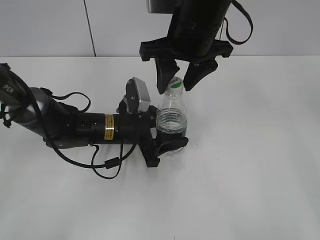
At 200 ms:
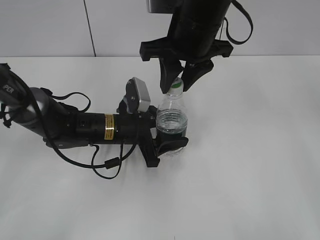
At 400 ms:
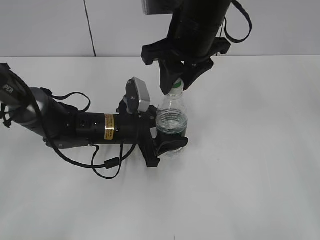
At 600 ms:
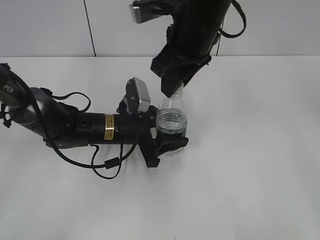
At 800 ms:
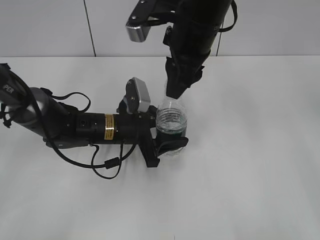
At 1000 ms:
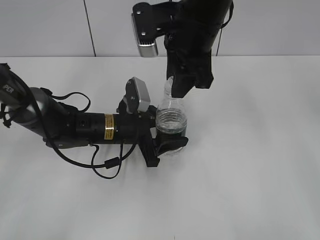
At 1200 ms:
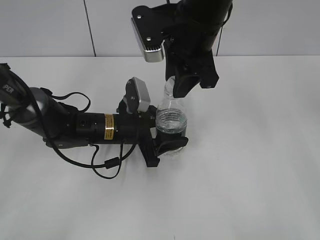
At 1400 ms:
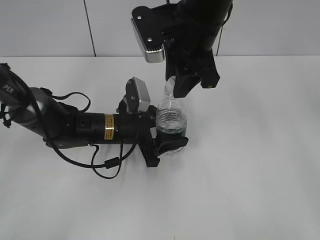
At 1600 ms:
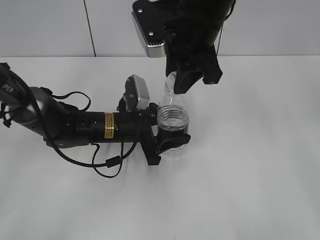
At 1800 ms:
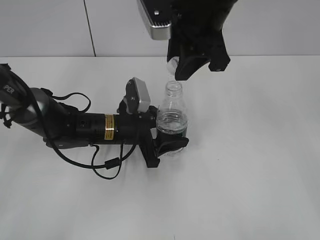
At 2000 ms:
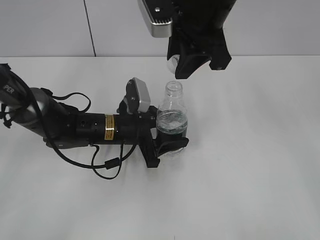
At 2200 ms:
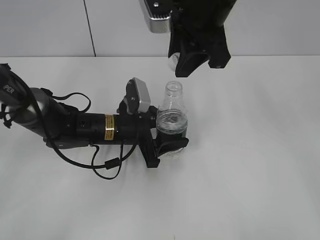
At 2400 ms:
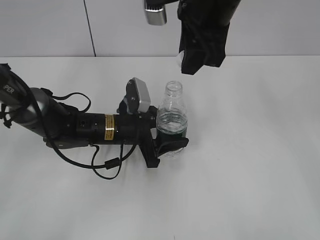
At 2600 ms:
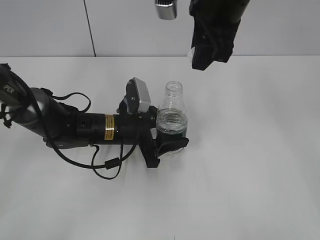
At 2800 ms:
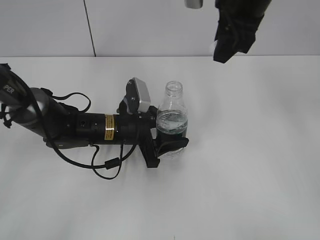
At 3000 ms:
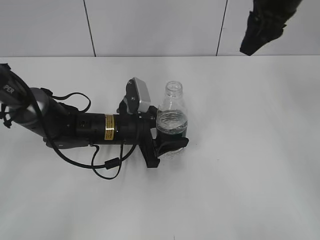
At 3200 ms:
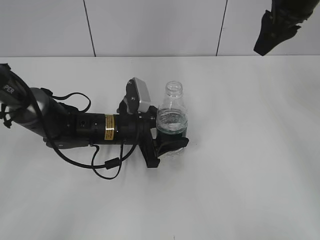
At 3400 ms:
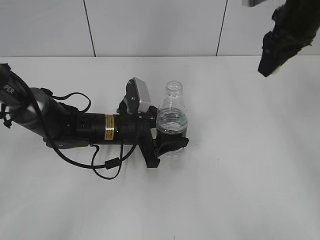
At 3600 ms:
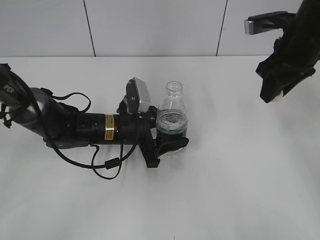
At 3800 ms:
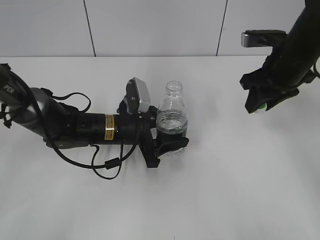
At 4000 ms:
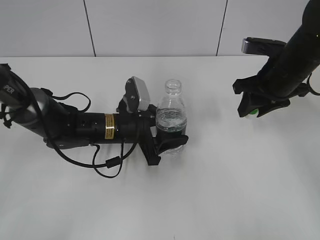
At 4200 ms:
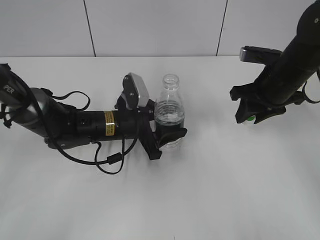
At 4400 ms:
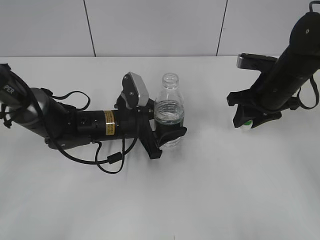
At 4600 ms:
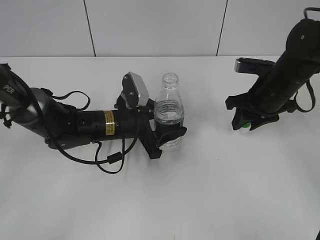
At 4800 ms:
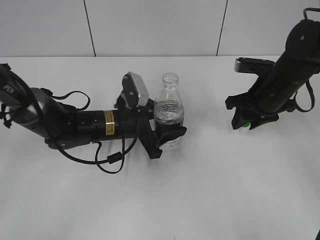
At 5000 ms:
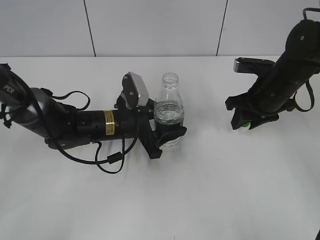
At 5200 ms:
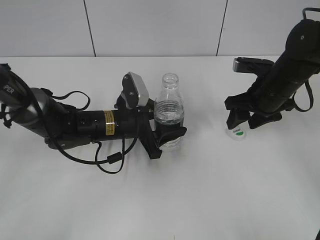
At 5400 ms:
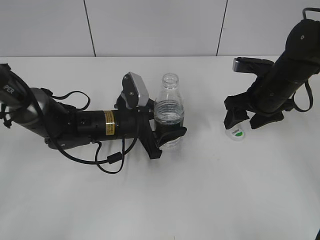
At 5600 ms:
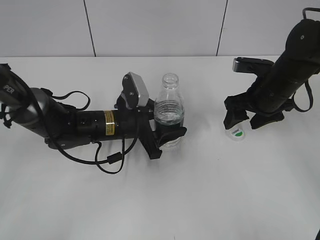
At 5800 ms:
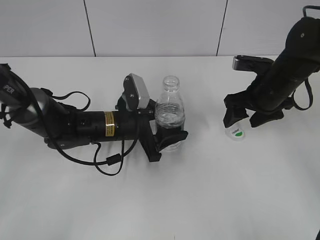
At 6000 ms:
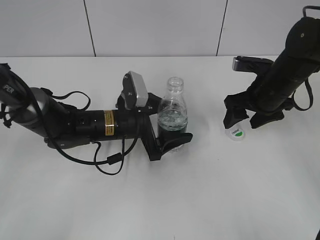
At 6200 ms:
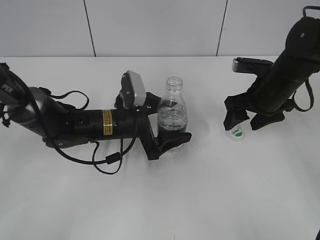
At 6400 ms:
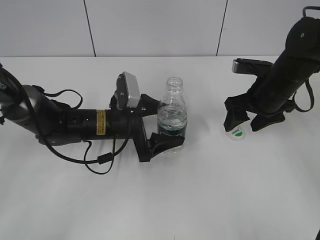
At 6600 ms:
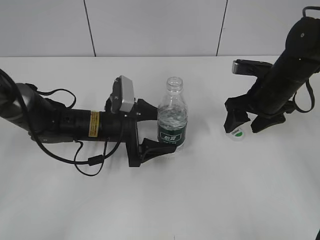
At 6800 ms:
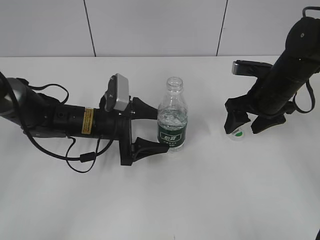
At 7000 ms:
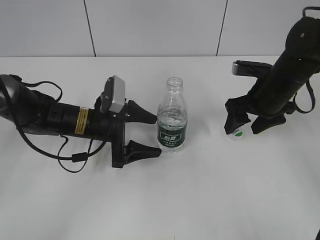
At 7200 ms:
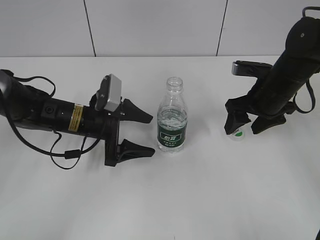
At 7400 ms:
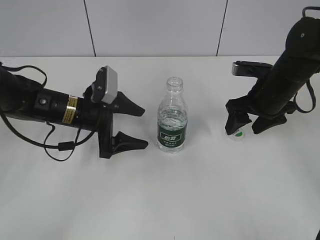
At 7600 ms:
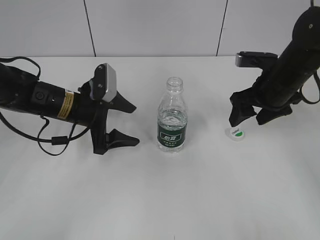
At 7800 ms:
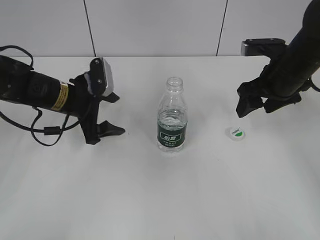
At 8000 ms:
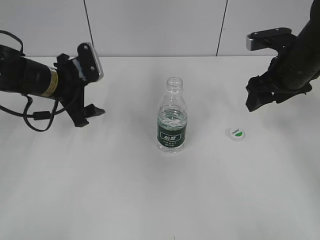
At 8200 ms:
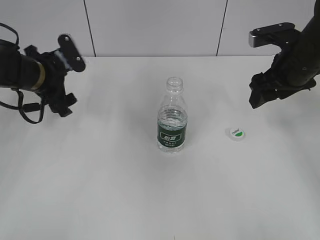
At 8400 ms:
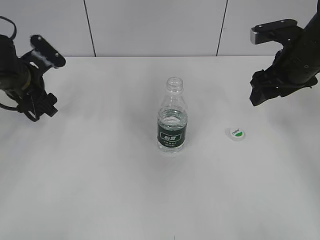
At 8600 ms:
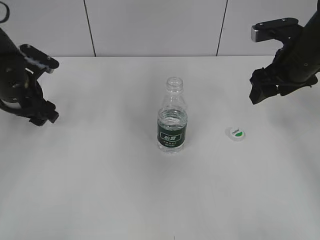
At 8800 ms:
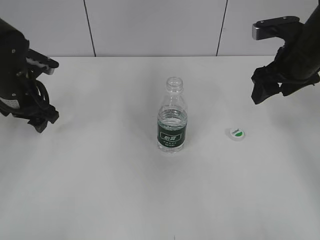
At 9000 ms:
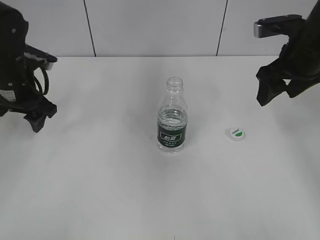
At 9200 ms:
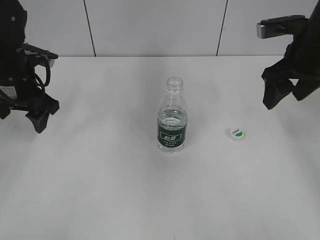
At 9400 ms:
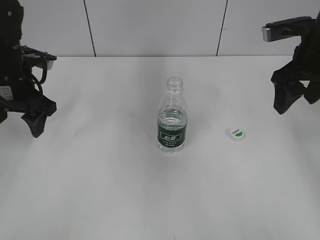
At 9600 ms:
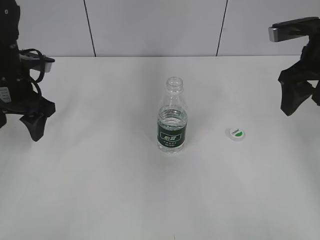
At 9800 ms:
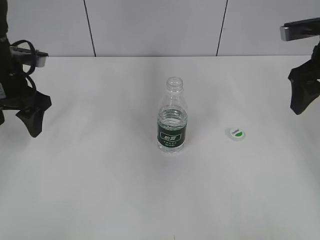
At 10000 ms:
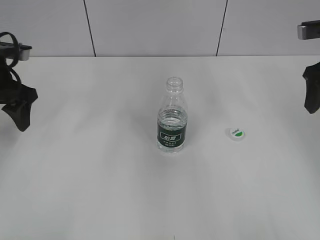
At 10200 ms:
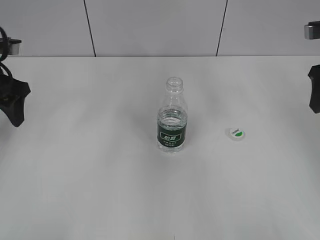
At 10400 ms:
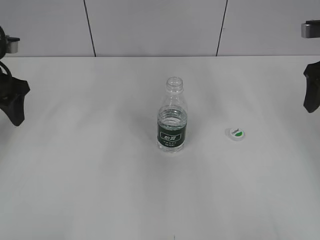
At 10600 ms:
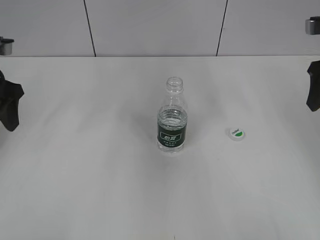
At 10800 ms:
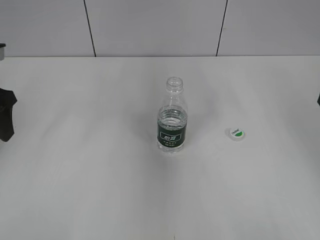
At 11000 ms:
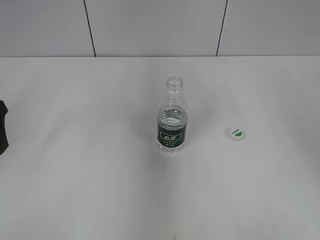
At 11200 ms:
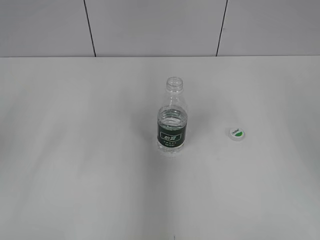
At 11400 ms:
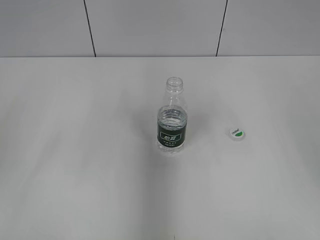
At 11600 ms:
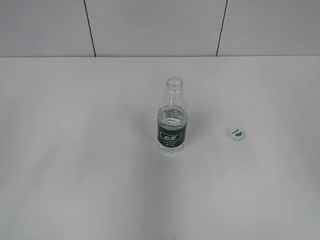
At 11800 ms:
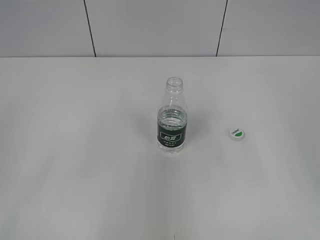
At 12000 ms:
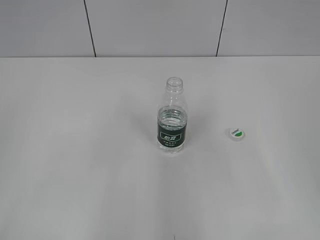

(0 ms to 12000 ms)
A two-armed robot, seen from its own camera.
0 ms - 1600 ms: The right gripper closes its fingers.
1600 ms - 3000 ms: The right gripper goes about 10 cm to the right.
3000 ms - 4400 ms: The right gripper travels downward by approximately 15 cm.
4400 ms - 6000 ms: The left gripper opens, while the right gripper opens its fingers.
6000 ms - 7600 ms: The left gripper heads to the left, covering approximately 10 cm.
7600 ms - 9000 ms: The left gripper travels to the left and upward by some 10 cm. The right gripper shifts roughly 10 cm upward.
9000 ms - 10400 ms: The right gripper shifts some 5 cm to the right, while the left gripper moves roughly 5 cm.
10400 ms - 12000 ms: The grippers both shift backward by about 25 cm.

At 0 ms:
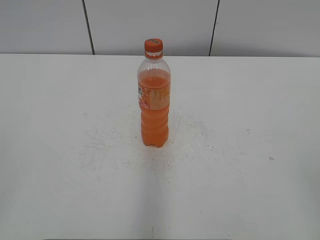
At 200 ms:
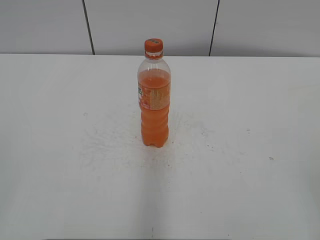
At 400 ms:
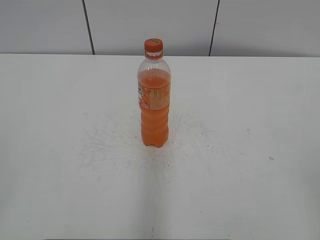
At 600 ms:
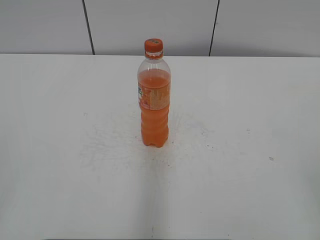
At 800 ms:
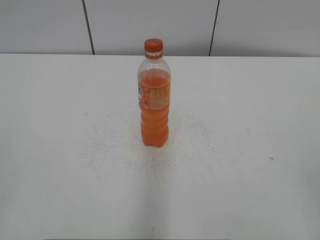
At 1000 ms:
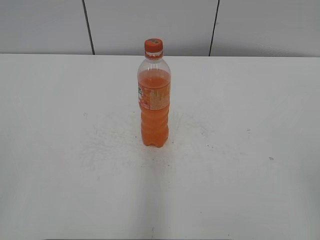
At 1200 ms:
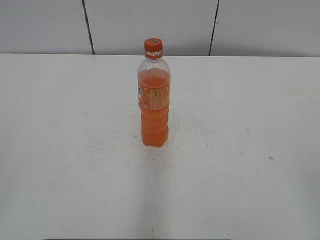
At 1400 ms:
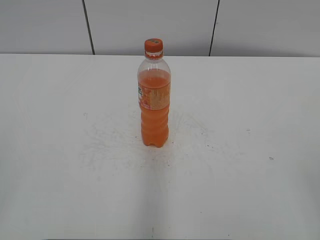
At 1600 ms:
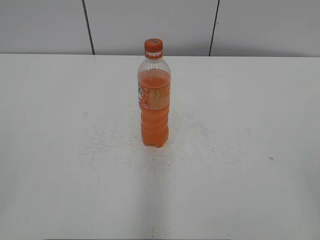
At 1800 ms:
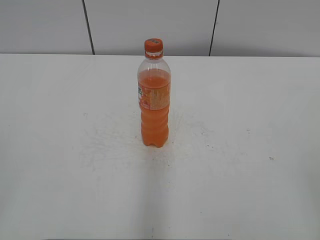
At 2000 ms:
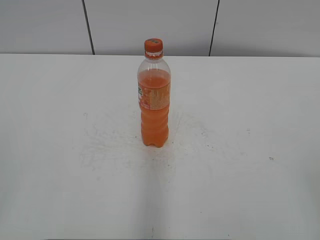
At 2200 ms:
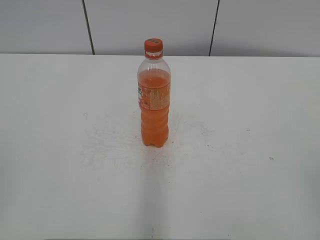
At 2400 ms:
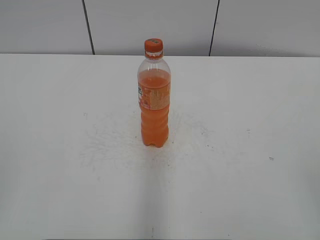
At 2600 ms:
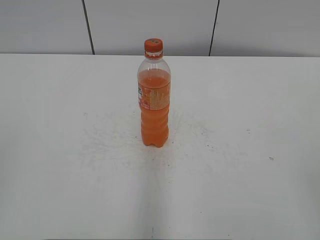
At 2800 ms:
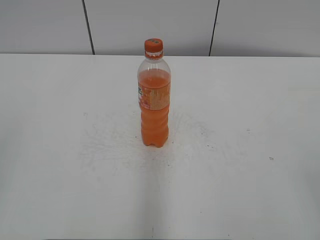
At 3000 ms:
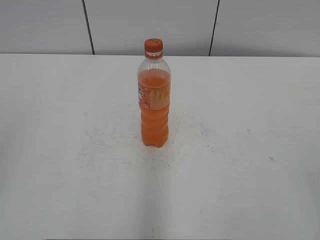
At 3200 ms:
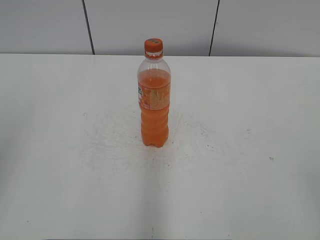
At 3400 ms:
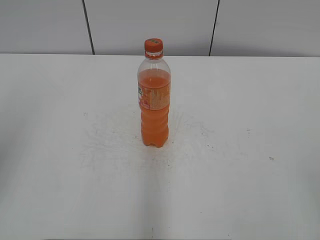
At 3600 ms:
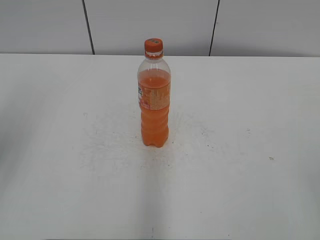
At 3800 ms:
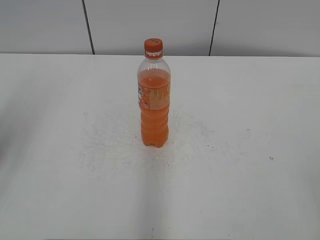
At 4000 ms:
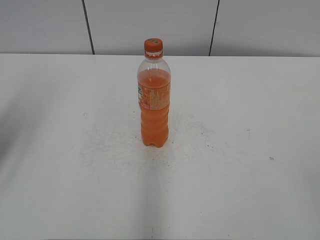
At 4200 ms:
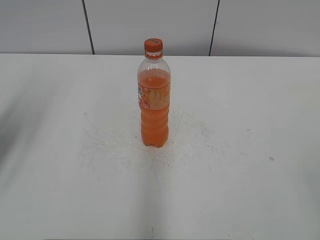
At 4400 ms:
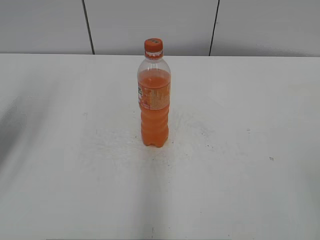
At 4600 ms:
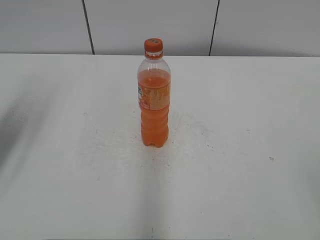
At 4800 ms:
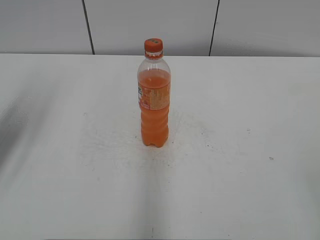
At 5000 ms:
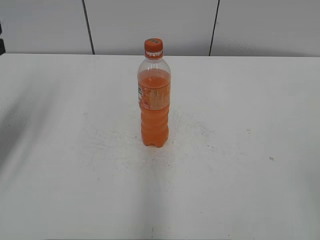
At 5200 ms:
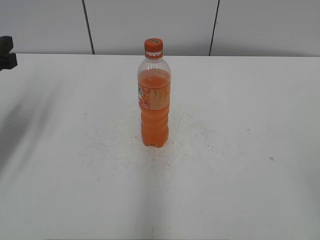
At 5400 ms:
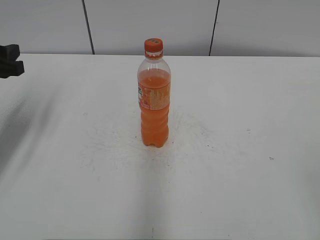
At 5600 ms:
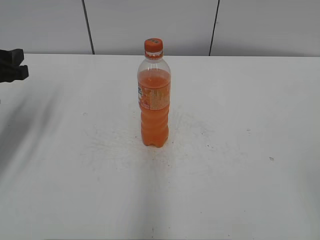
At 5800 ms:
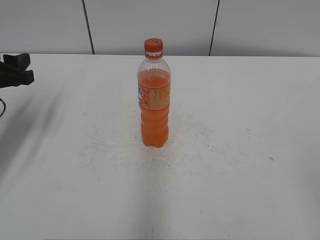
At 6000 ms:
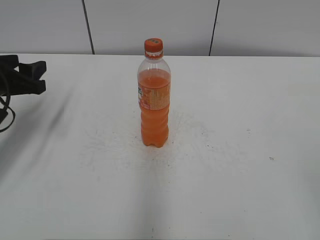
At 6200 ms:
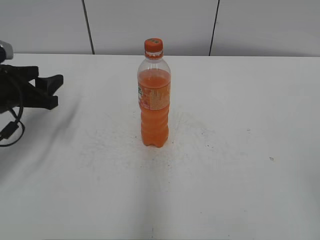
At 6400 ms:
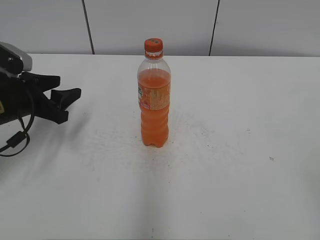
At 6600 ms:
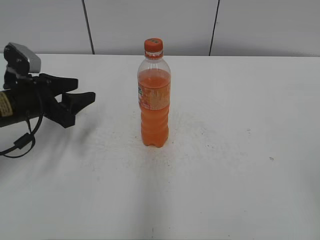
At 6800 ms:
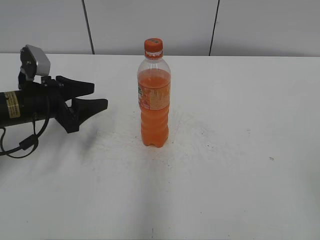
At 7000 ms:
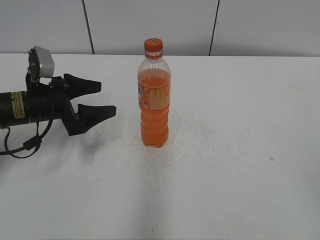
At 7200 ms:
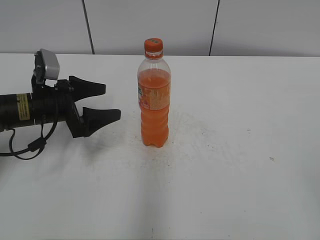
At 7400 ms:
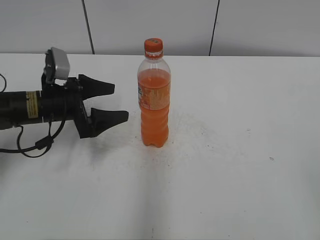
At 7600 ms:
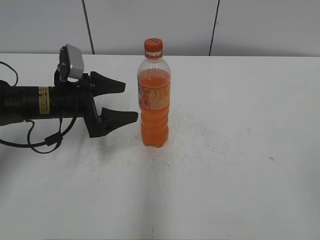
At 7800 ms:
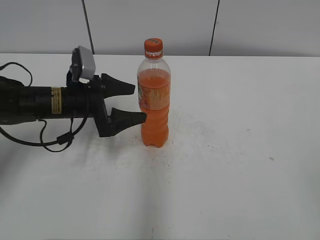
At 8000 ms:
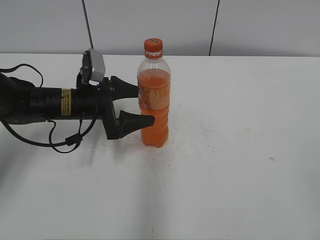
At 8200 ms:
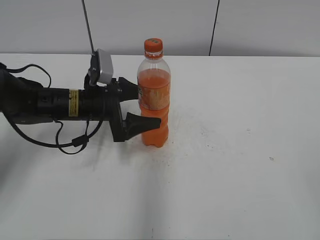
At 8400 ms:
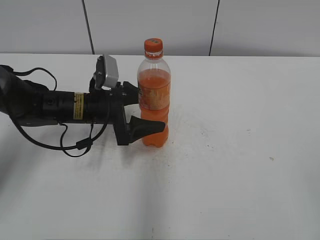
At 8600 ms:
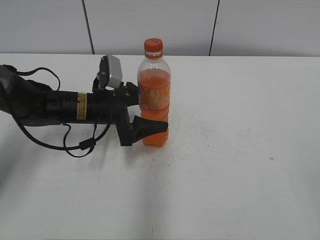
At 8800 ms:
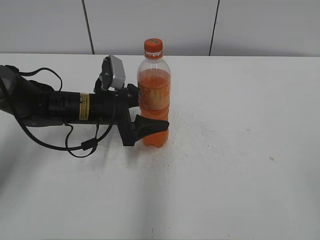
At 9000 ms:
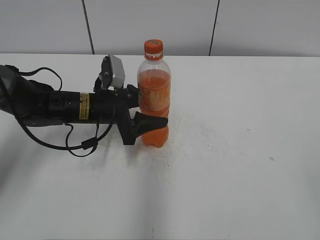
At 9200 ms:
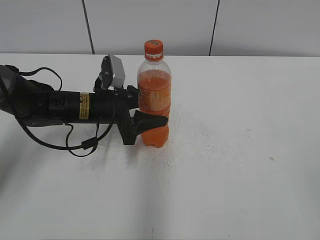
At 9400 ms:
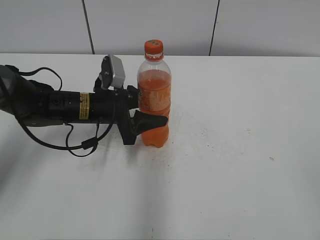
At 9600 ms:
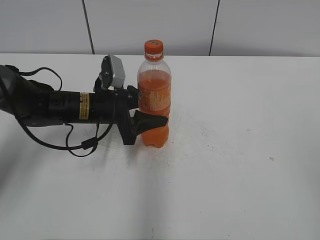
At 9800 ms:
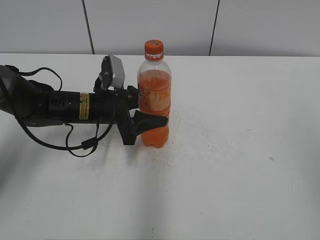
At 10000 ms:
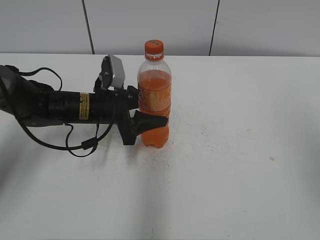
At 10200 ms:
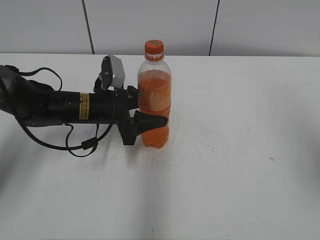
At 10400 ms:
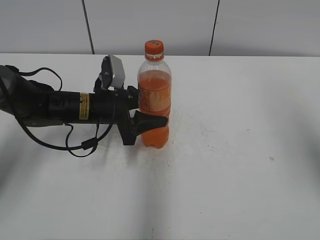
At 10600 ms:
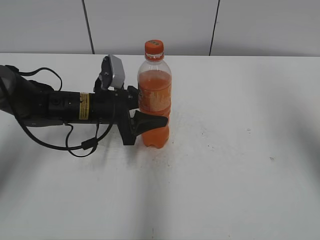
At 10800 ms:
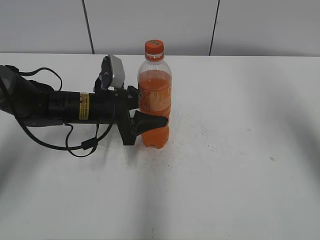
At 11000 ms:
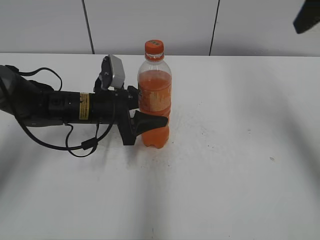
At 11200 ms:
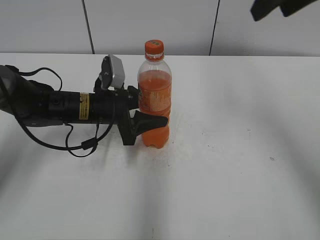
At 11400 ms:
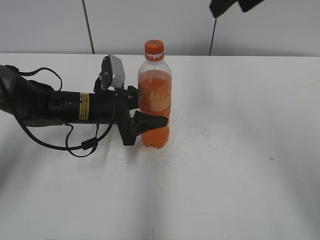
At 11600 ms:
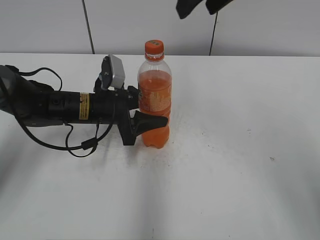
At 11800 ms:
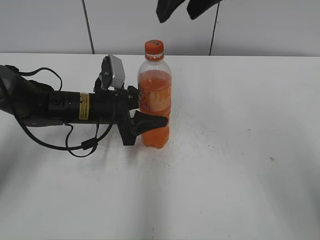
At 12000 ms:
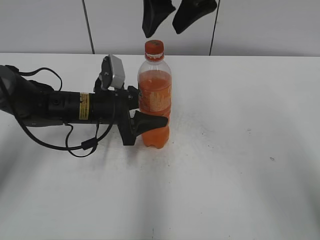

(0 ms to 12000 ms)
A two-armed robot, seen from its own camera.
Step, 0 ms - 9000 ms: Grab the Mirinda with the left hand.
3000 ms - 4400 ms: The left gripper travels forward by approximately 20 cm.
4400 ms - 6000 ms: The left gripper moves downward and forward, about 10 cm.
6000 ms - 7600 ms: The left gripper is displaced to the right by about 10 cm, and opens.
7600 ms - 9000 ms: The left gripper moves to the right, about 5 cm, and closes its fingers.
9000 ms - 10400 ms: The right gripper travels forward and upward by about 20 cm.
10400 ms - 12000 ms: The right gripper shifts roughly 30 cm to the left and forward.
